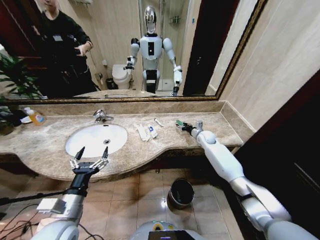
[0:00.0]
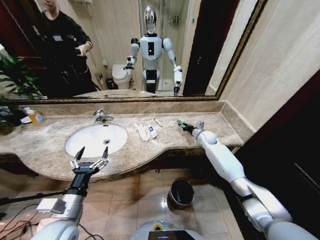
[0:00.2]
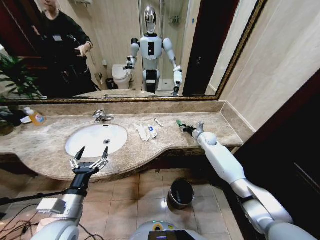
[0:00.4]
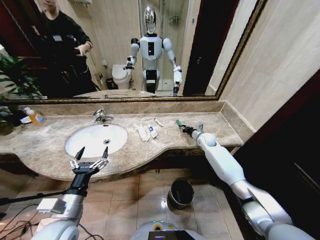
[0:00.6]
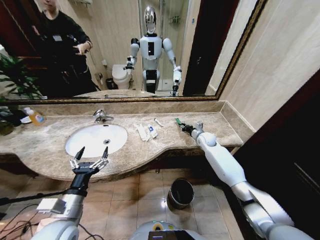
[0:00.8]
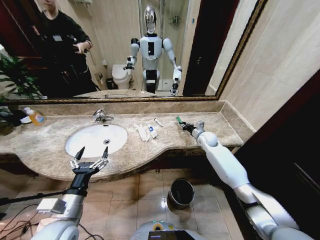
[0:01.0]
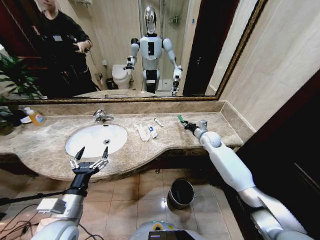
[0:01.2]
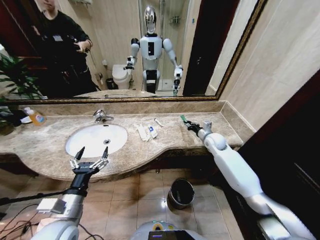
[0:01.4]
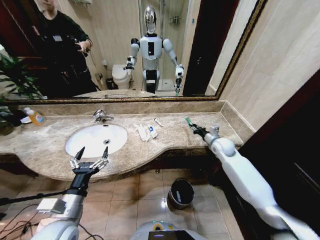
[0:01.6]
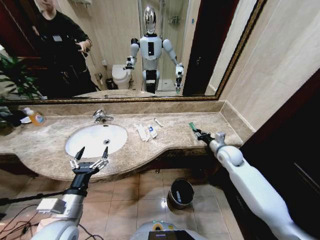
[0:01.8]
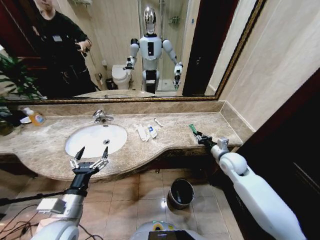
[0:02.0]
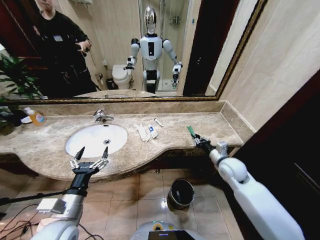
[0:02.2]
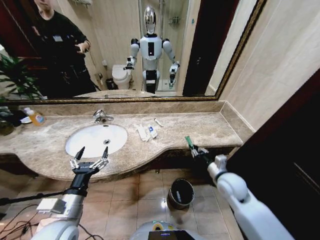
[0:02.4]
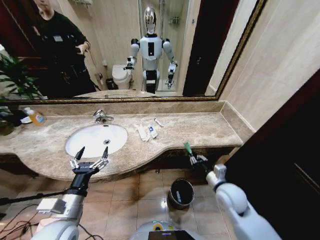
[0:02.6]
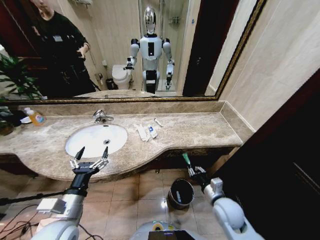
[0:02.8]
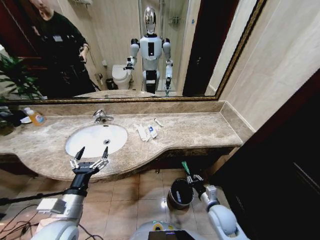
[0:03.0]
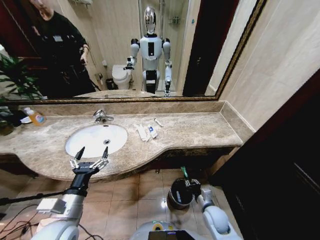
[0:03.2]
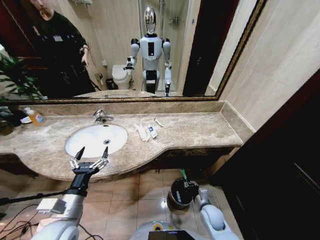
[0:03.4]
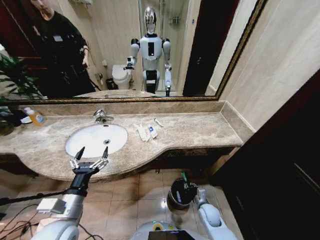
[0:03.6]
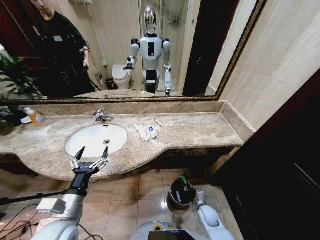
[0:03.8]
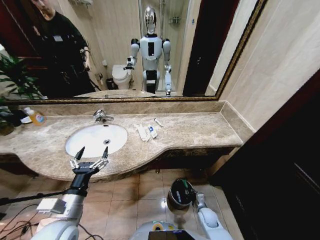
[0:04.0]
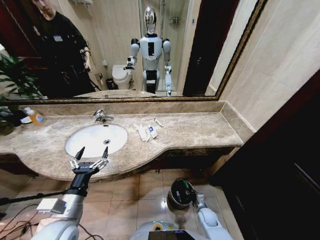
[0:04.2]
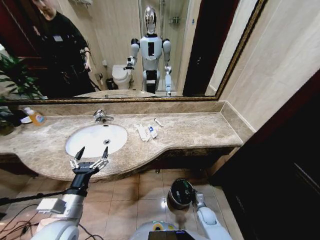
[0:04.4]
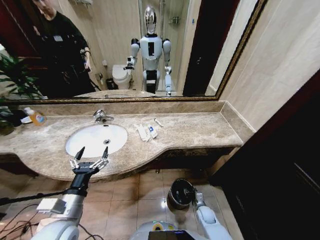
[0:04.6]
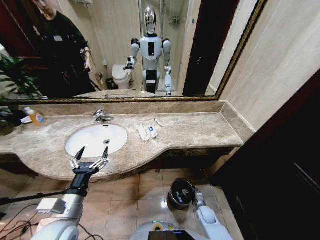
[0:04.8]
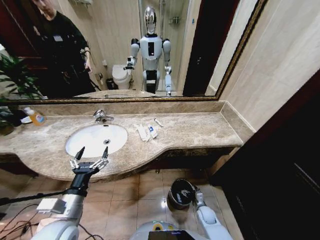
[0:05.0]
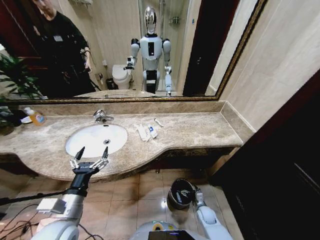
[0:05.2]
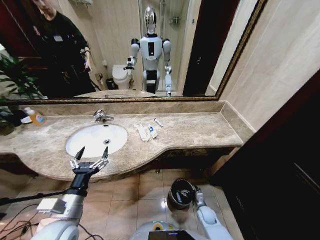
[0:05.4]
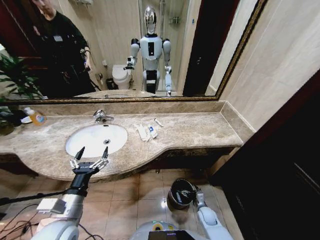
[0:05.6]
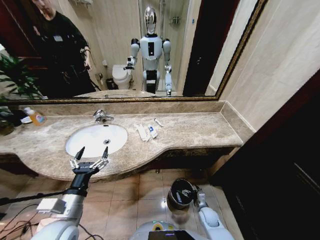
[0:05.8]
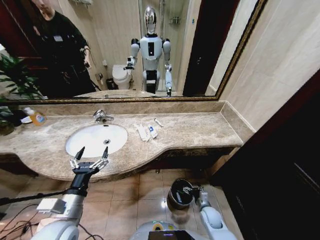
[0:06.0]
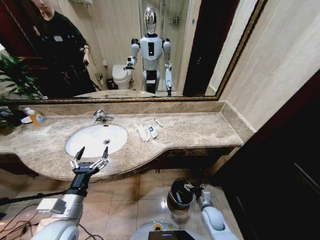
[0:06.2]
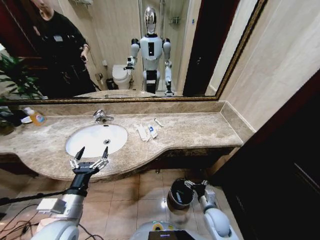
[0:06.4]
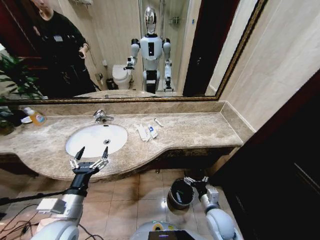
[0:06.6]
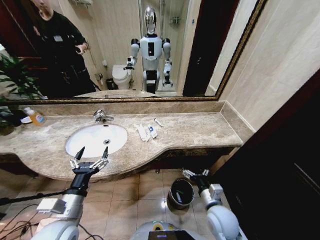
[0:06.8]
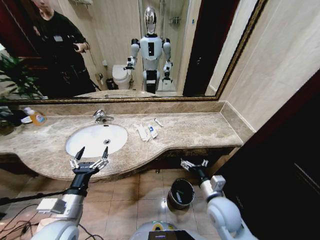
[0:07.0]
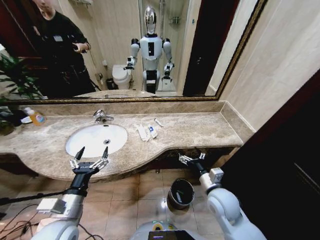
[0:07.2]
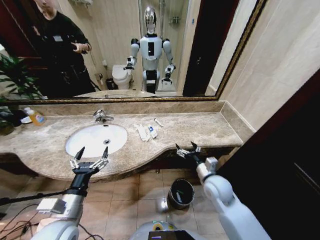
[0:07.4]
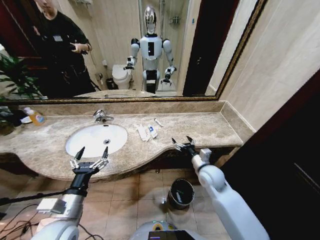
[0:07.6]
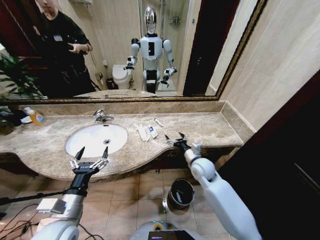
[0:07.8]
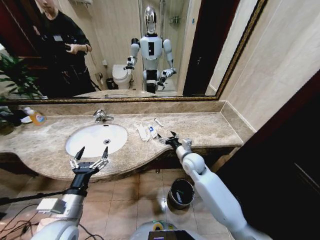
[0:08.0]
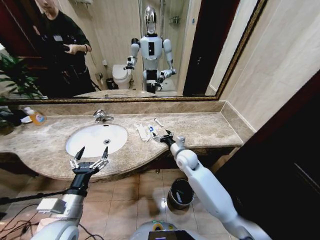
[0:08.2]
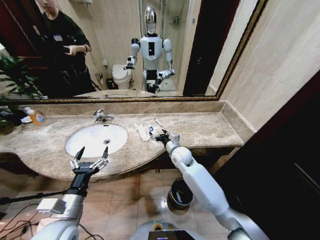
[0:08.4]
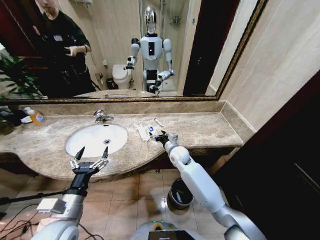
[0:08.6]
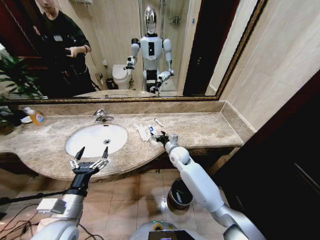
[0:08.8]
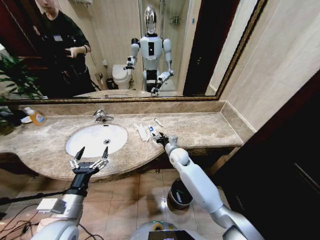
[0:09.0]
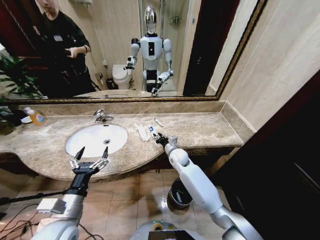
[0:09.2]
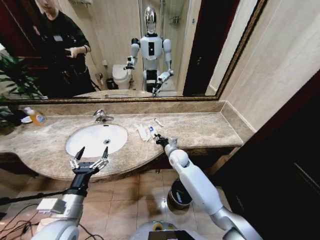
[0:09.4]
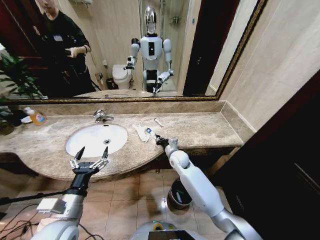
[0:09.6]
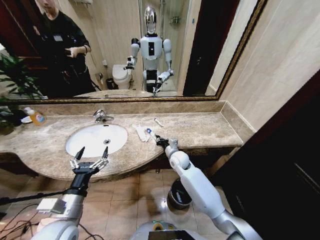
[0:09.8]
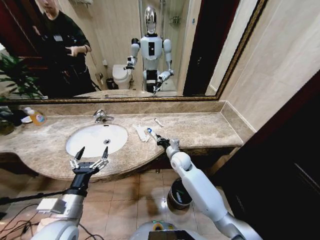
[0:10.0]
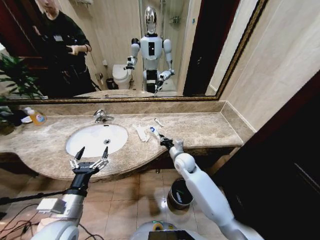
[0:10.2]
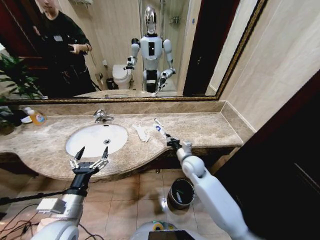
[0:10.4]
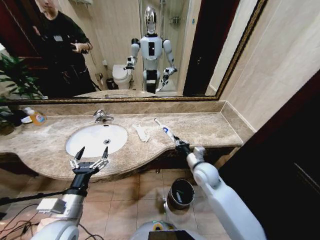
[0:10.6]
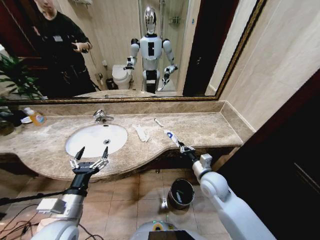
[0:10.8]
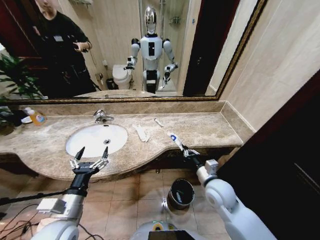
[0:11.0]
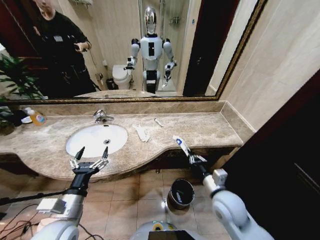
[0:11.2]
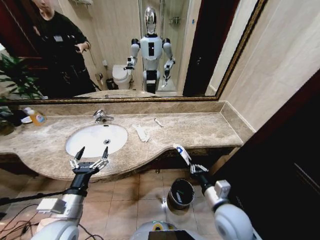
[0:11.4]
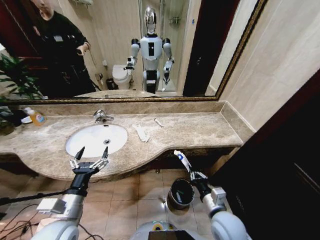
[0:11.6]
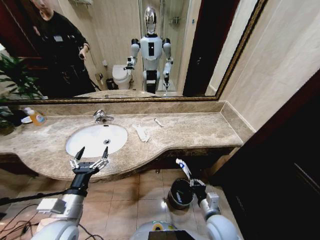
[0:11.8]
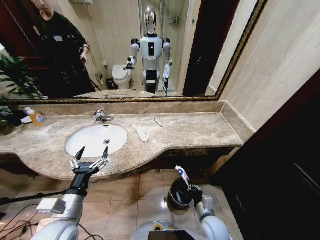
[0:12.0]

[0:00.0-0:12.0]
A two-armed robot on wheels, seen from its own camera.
Task of the whole recording: Pick up the trash from the sink and place it in the trash bin.
0:00.0 to 0:01.6: The right gripper moves backward, about 10 cm, and closes its fingers.
0:01.6 to 0:03.0: The right gripper shifts about 30 cm backward and downward.
0:03.0 to 0:04.4: The right gripper travels downward by about 20 cm.
0:04.4 to 0:06.0: The right gripper goes roughly 5 cm upward, and opens up.
0:06.0 to 0:07.6: The right gripper shifts roughly 25 cm upward.
0:07.6 to 0:09.0: The right gripper heads forward and to the left, covering some 15 cm, and closes up.
0:09.0 to 0:10.4: The right gripper is displaced backward and to the right by some 10 cm, and closes.
0:10.4 to 0:12.0: The right gripper goes about 25 cm backward and downward.

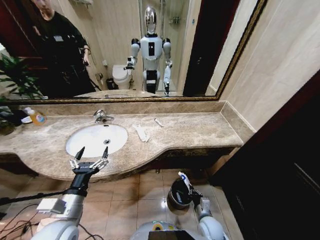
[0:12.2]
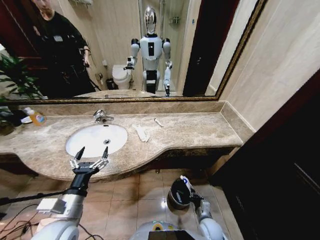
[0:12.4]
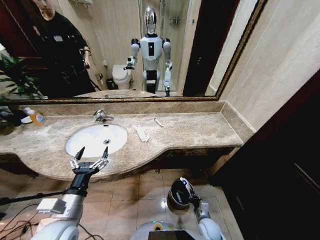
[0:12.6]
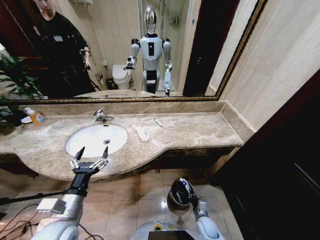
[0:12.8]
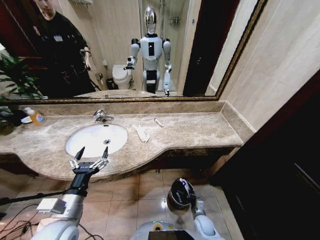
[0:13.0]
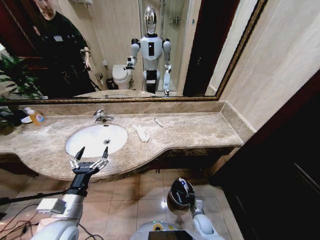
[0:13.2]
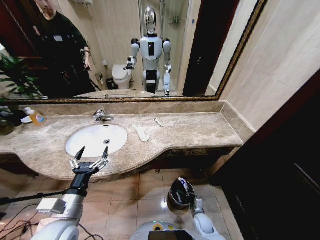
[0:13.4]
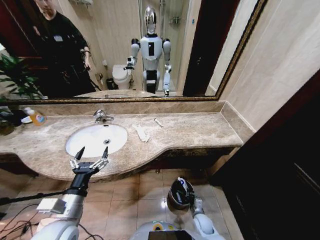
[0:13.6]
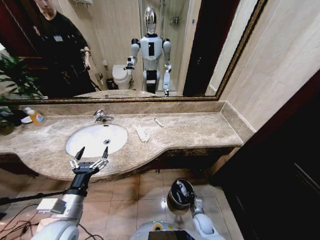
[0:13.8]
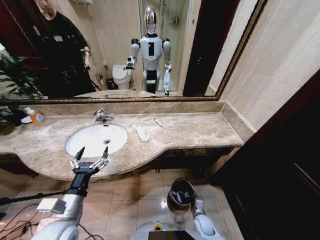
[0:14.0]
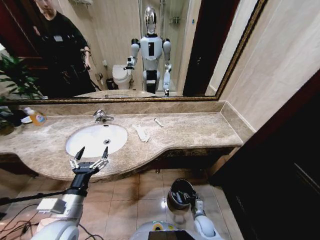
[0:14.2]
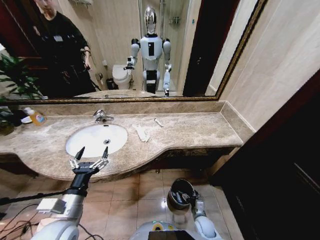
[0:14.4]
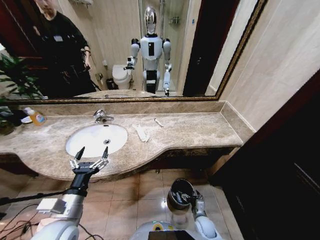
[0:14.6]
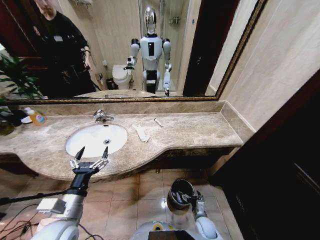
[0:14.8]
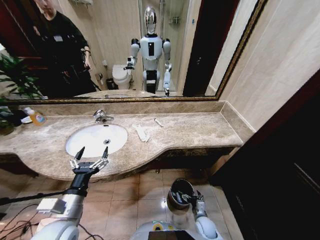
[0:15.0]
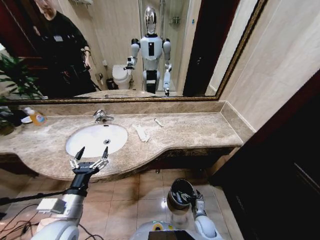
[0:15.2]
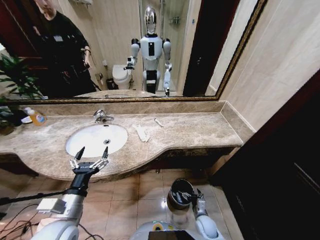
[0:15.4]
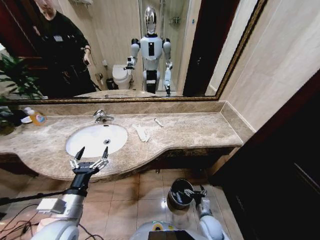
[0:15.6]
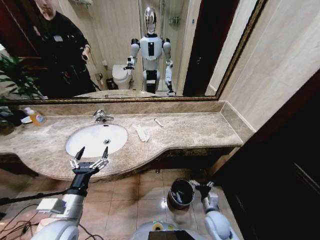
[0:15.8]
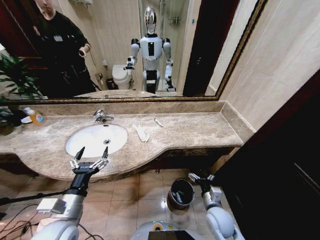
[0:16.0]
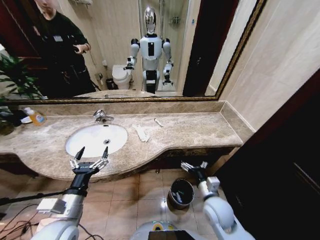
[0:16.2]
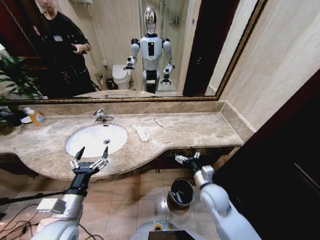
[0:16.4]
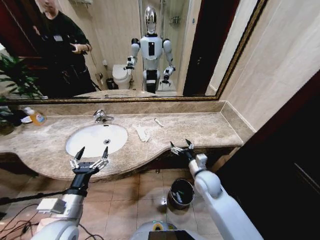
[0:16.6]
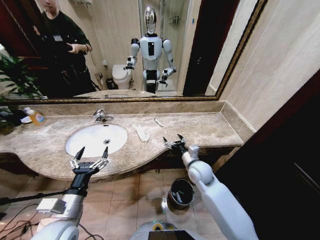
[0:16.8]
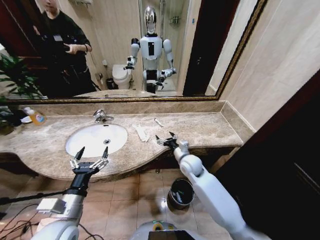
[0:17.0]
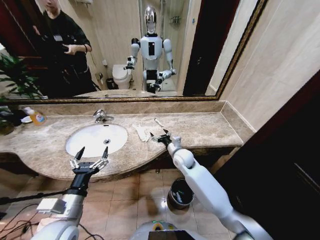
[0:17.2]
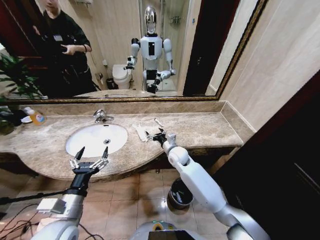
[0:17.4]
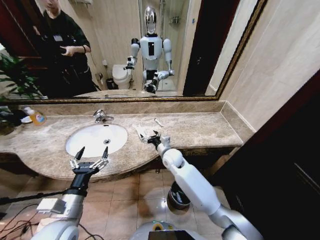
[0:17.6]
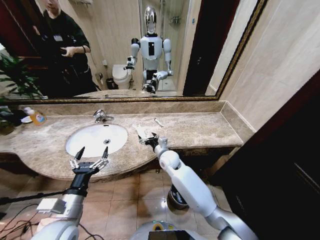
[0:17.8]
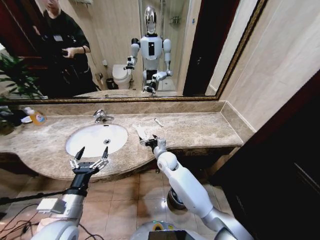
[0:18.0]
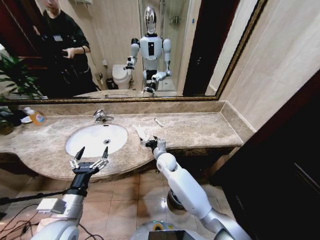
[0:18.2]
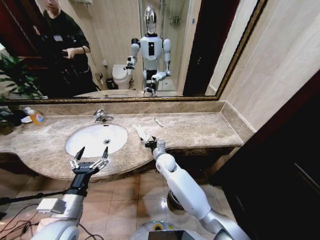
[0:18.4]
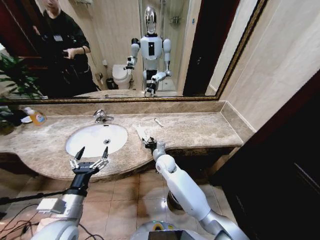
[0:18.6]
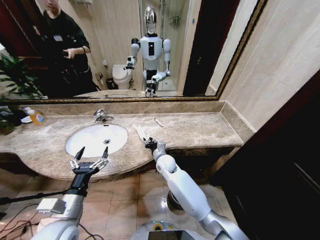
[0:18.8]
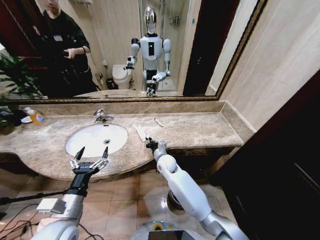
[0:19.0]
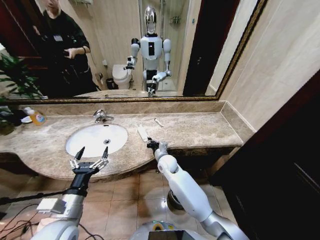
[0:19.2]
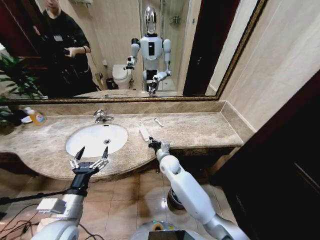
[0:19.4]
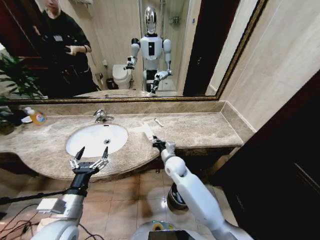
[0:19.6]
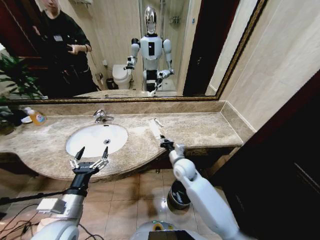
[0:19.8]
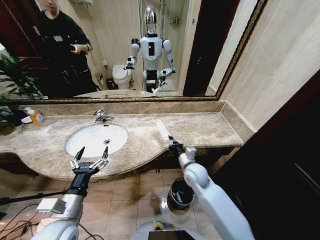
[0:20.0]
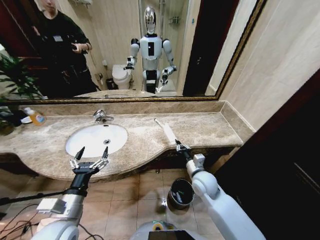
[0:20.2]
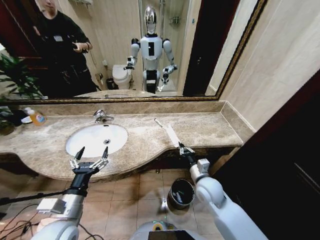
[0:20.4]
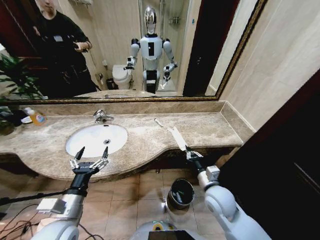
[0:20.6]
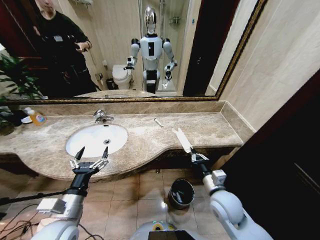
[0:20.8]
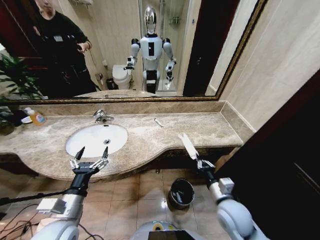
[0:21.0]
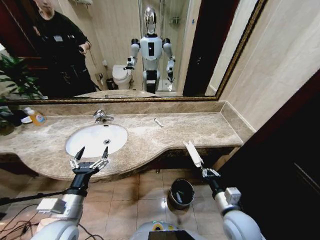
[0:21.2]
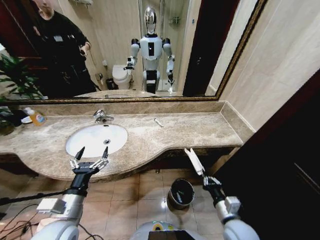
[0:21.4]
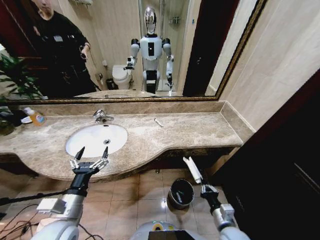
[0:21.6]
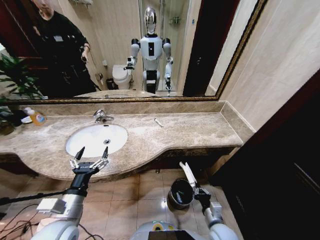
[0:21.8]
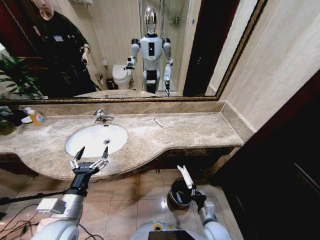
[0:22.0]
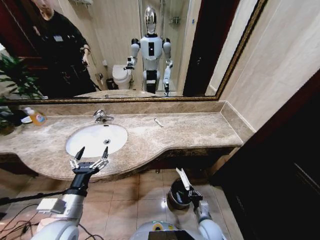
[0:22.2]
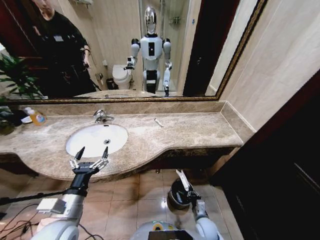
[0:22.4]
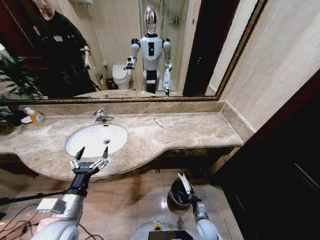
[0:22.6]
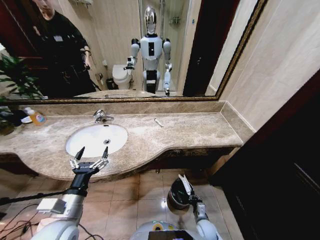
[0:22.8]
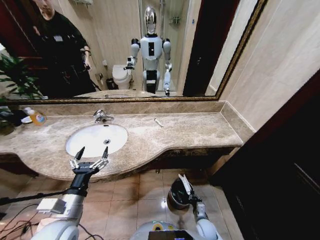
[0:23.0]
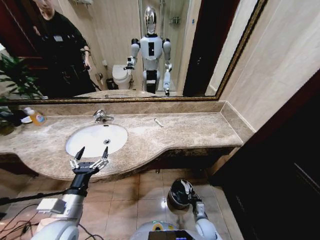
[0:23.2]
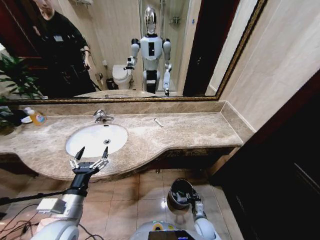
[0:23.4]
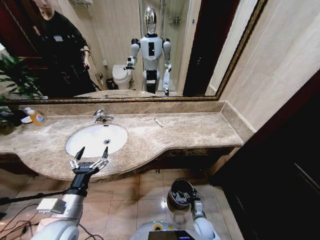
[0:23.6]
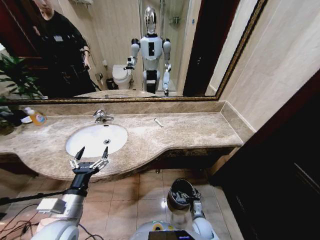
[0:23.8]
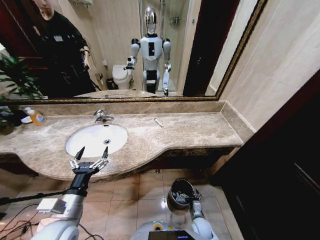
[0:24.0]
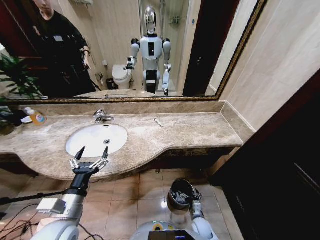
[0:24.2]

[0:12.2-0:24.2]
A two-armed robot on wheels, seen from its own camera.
Task of the whole recording: Pick up the trash from the sink and place it in the trash bin.
0:12.2 to 0:13.8: The right gripper goes some 10 cm downward.
0:13.8 to 0:15.2: The right gripper opens.
0:15.2 to 0:16.6: The right gripper goes some 30 cm upward and forward.
0:16.6 to 0:18.2: The right gripper heads to the left and forward, covering roughly 20 cm.
0:18.2 to 0:19.8: The right gripper is displaced to the right by roughly 10 cm, and closes its fingers.
0:19.8 to 0:21.2: The right gripper travels backward and to the right by some 25 cm.
0:21.2 to 0:22.6: The right gripper goes some 25 cm downward.
0:22.6 to 0:24.2: The right gripper opens up.
